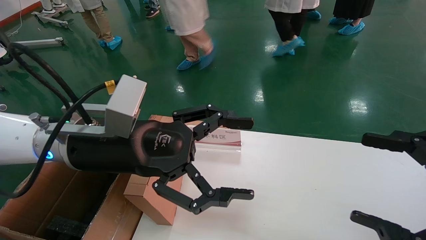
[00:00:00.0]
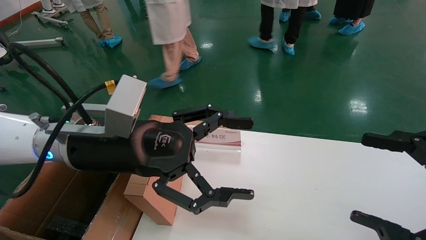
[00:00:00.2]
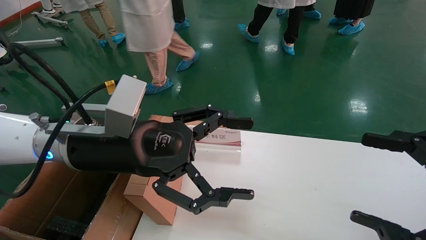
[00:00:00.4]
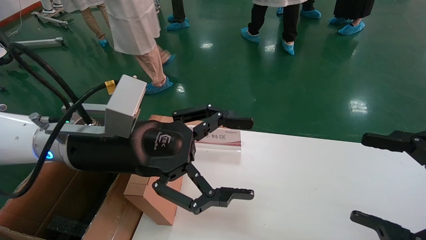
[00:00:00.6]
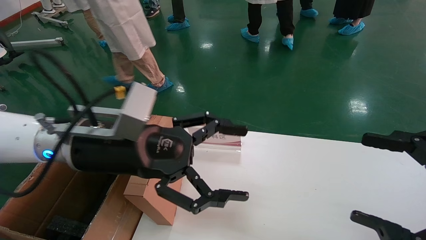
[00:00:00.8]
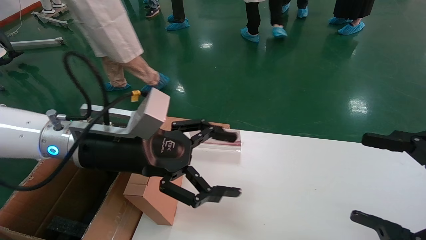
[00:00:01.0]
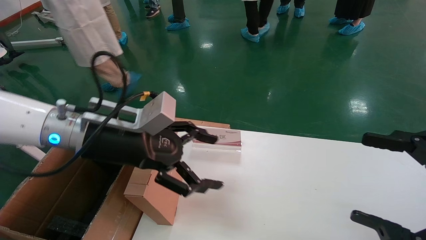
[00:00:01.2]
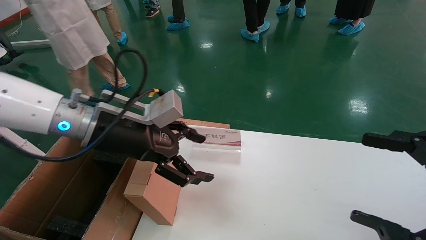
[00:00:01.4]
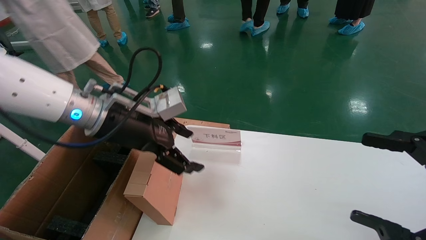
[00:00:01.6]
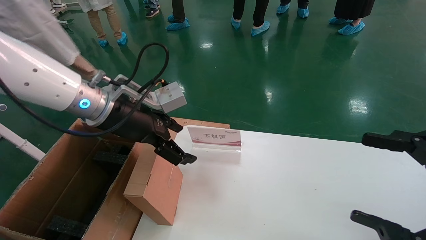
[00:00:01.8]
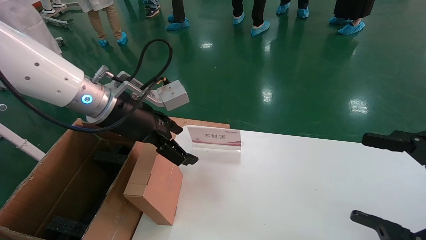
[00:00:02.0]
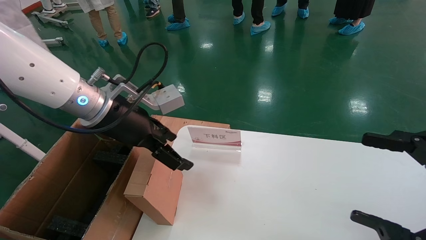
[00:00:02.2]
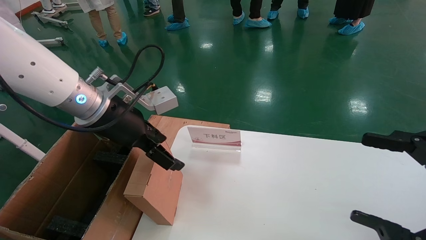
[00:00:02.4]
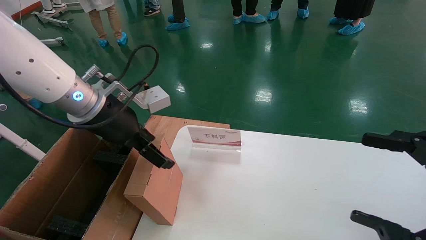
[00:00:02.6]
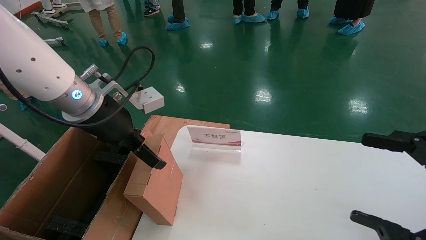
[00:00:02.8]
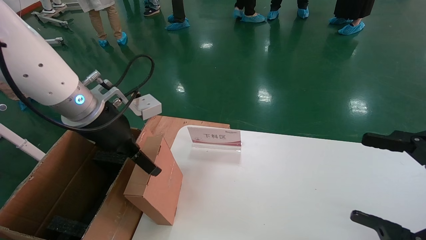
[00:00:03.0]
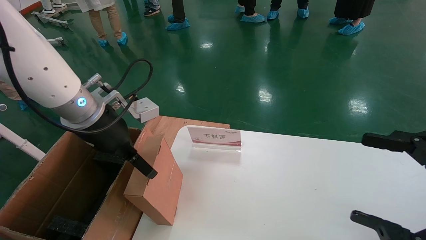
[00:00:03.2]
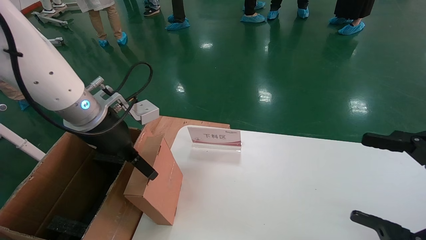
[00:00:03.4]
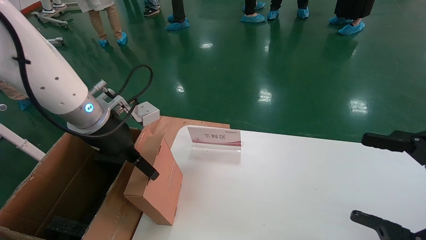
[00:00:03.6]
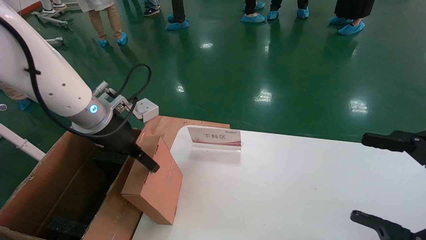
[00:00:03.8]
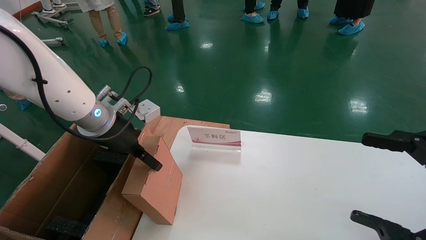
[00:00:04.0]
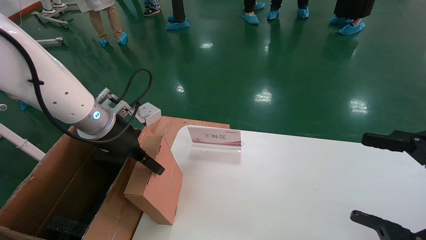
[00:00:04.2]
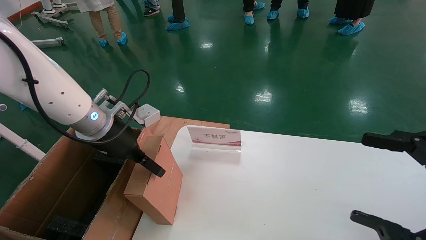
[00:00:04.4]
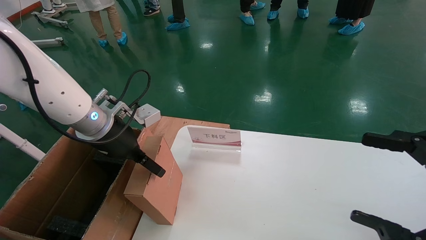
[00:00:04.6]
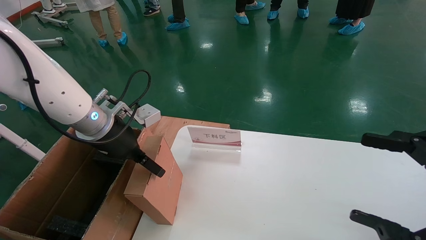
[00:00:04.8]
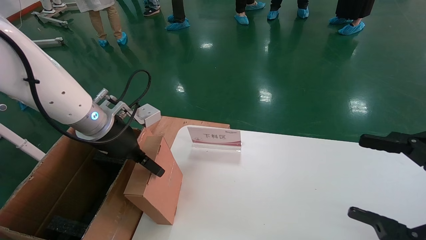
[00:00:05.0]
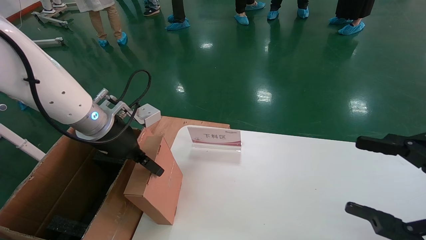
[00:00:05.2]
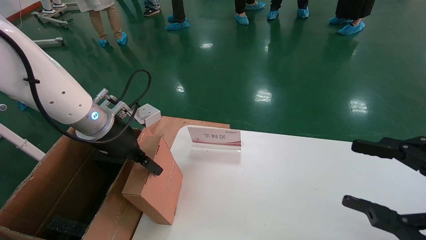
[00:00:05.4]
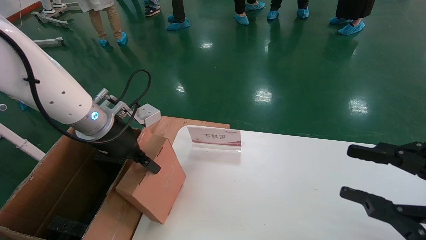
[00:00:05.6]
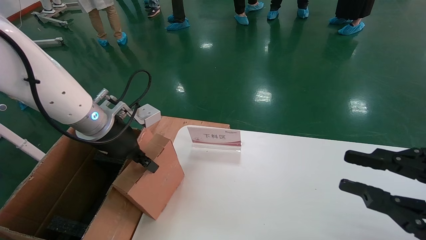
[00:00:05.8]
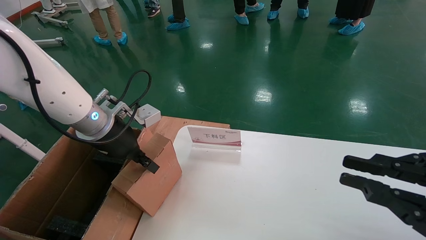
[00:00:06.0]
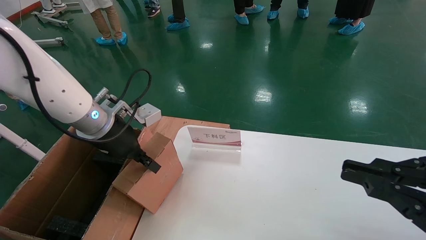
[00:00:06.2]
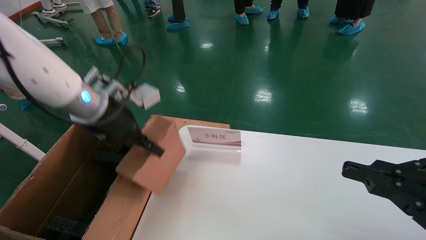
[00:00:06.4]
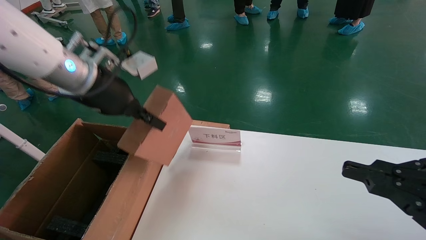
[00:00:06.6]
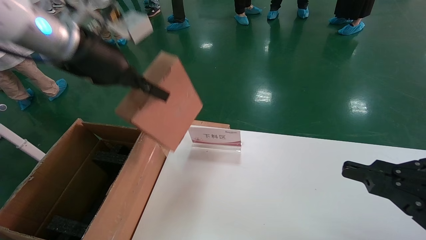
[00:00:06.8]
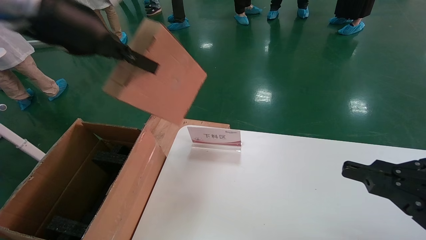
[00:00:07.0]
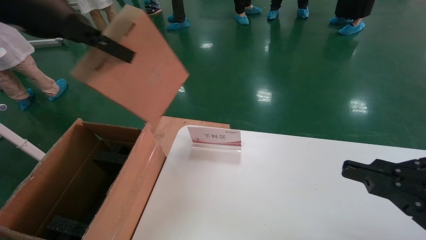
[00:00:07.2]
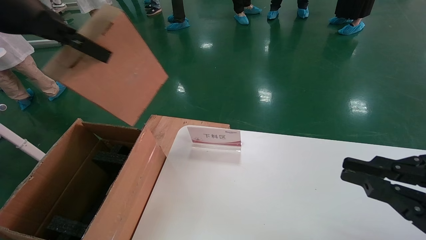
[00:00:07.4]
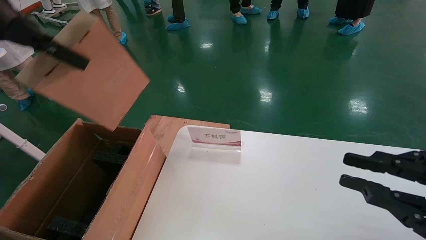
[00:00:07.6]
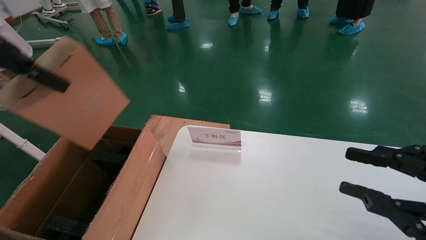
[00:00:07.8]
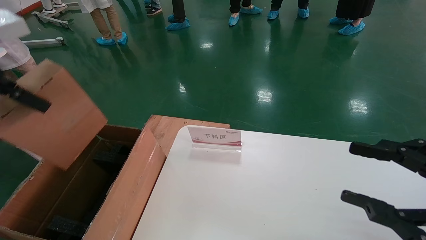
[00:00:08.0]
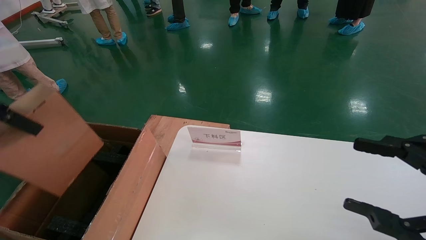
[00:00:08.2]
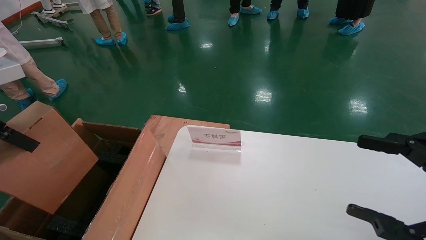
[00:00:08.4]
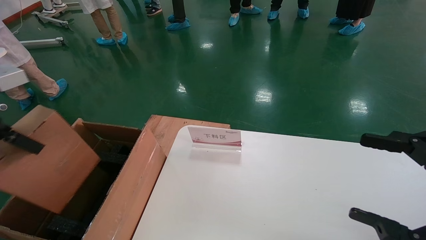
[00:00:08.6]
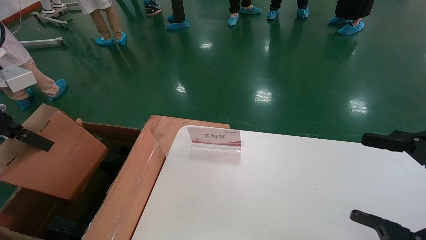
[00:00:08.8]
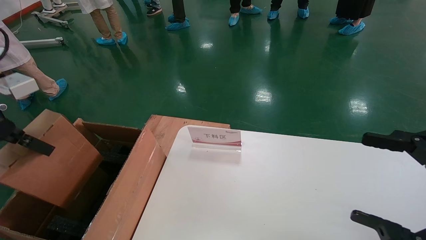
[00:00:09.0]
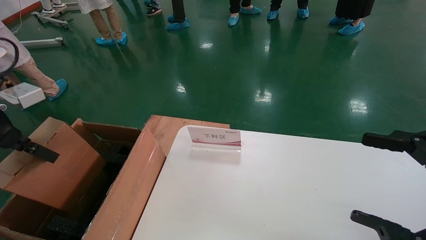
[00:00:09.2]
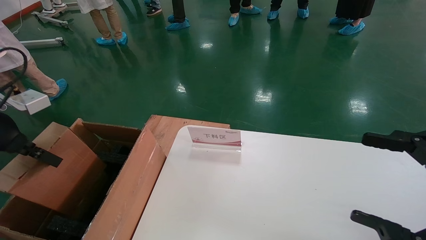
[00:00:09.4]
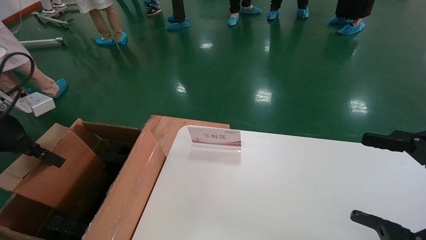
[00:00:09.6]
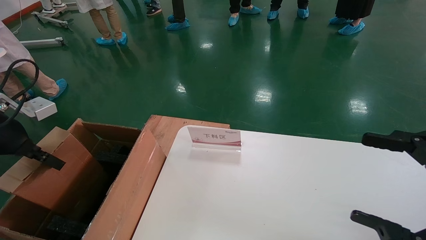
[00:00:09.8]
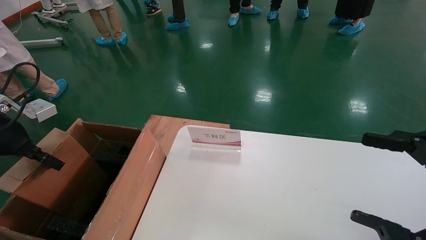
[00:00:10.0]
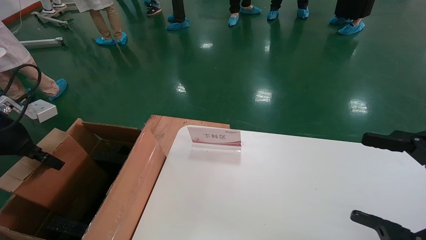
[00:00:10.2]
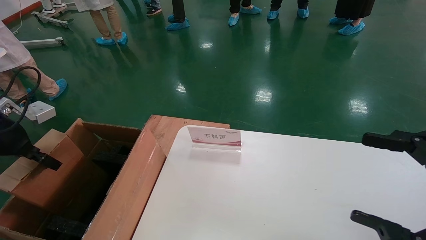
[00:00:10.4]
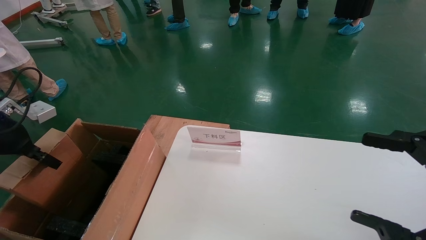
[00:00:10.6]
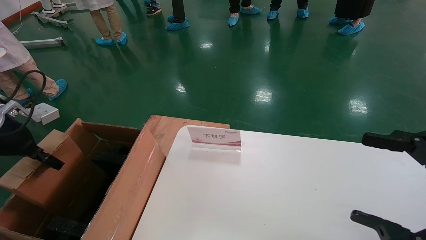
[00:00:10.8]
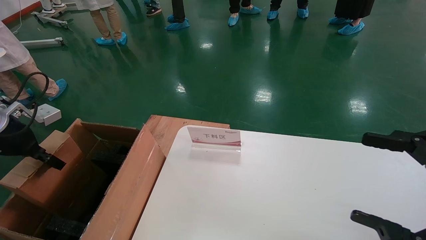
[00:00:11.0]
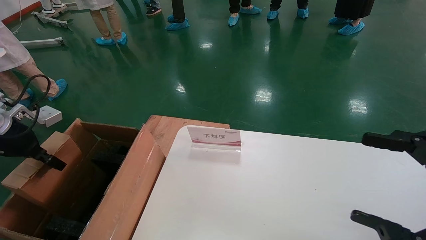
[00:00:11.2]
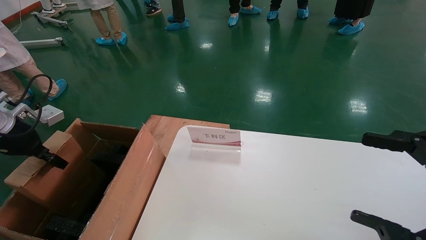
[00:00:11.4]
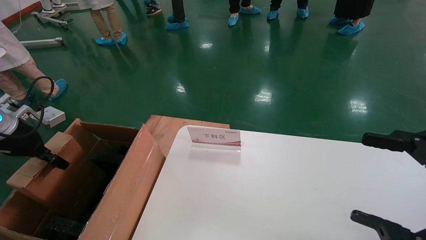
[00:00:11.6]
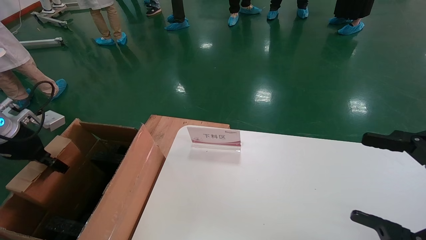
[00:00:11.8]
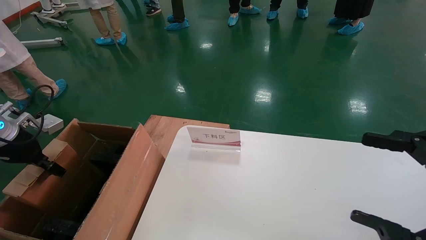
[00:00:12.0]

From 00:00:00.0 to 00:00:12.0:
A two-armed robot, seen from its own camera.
Task of the whole recording: pick up the small cardboard box and load it into the large cardboard box.
Step, from 00:00:01.2 to 00:00:05.4: Pick up the mouse and power cord box.
From 00:00:00.0 to 00:00:01.6: The left gripper moves forward, roughly 5 cm.
From 00:00:03.0 to 00:00:04.4: The grippers make only small movements.
From 00:00:04.4 to 00:00:06.0: The right gripper closes. The left gripper closes up.
From 00:00:06.0 to 00:00:07.6: The left gripper shifts some 25 cm upward and backward.
From 00:00:07.6 to 00:00:09.0: The right gripper opens its fingers, while the left gripper shifts approximately 15 cm downward and to the left.
From 00:00:09.0 to 00:00:10.4: The left gripper goes roughly 10 cm downward and forward.
From 00:00:10.4 to 00:00:12.0: The left gripper moves roughly 5 cm.

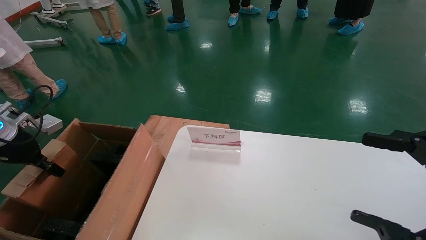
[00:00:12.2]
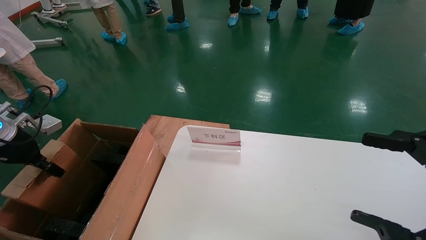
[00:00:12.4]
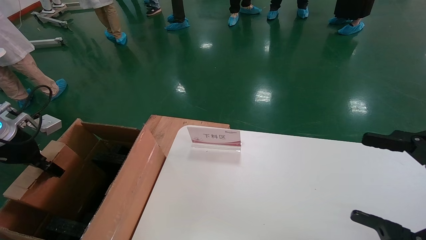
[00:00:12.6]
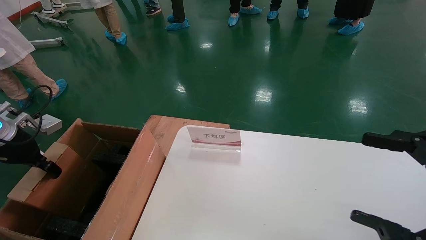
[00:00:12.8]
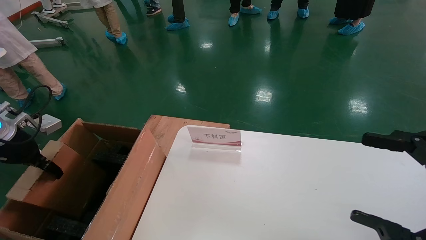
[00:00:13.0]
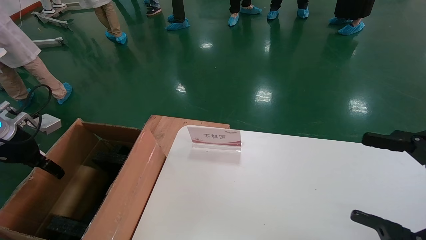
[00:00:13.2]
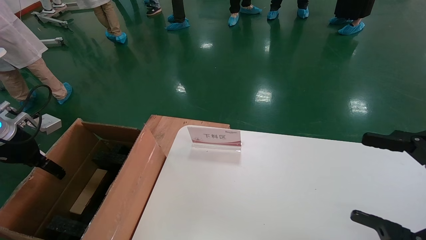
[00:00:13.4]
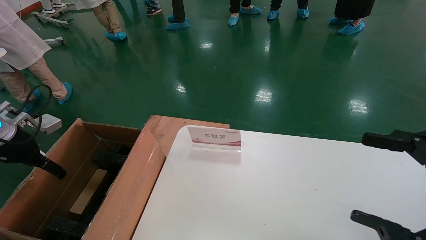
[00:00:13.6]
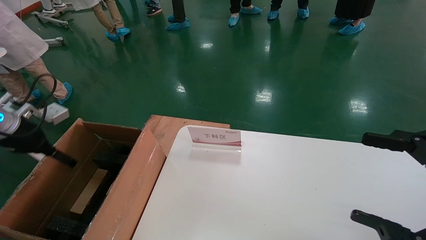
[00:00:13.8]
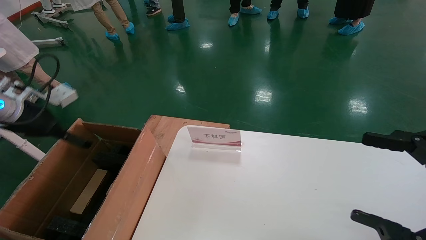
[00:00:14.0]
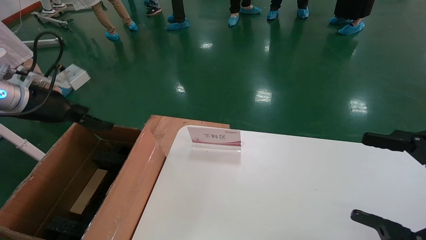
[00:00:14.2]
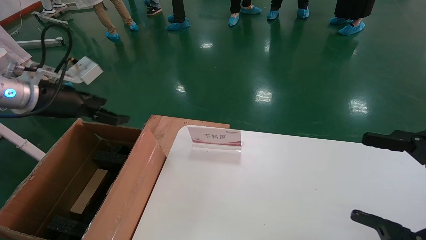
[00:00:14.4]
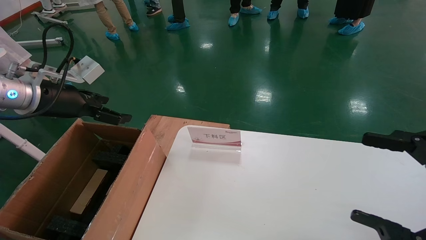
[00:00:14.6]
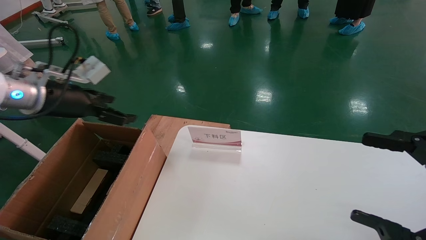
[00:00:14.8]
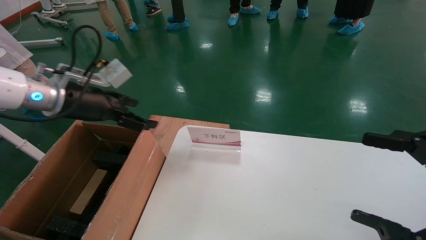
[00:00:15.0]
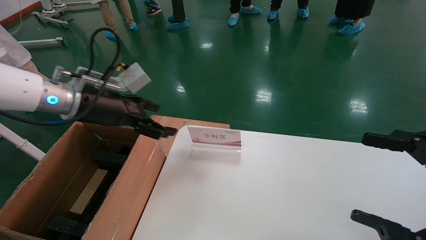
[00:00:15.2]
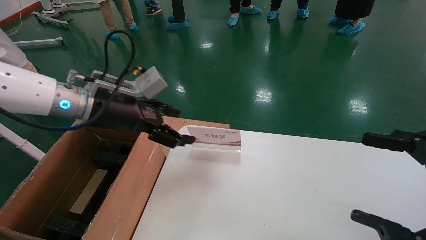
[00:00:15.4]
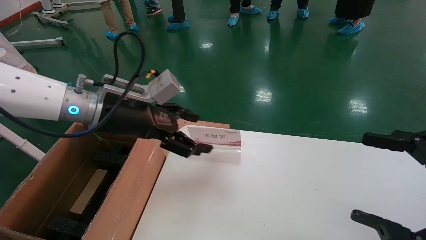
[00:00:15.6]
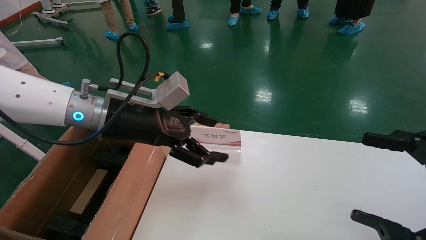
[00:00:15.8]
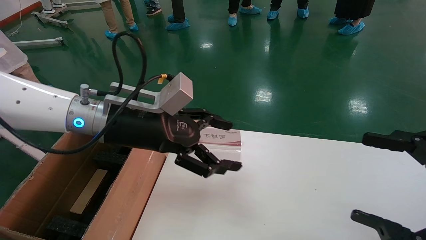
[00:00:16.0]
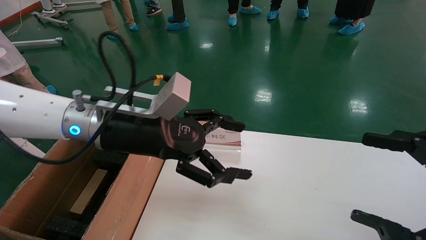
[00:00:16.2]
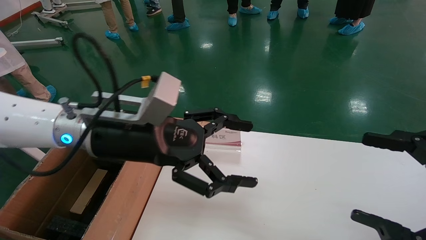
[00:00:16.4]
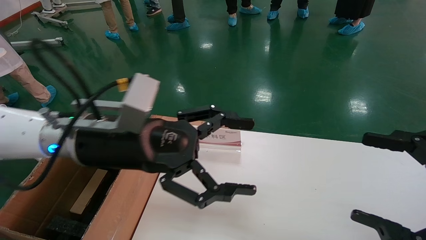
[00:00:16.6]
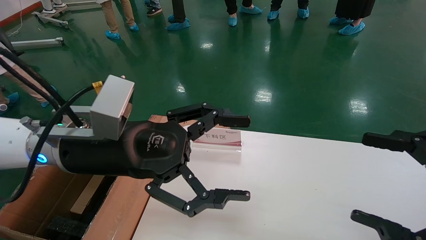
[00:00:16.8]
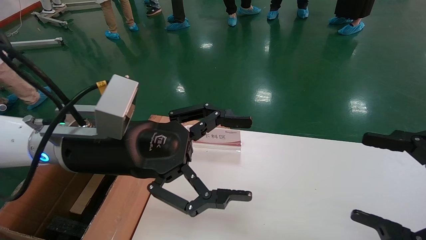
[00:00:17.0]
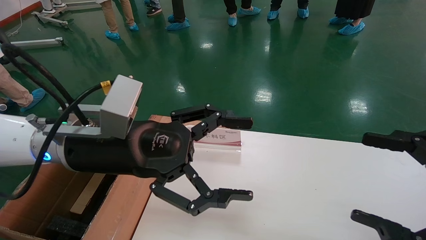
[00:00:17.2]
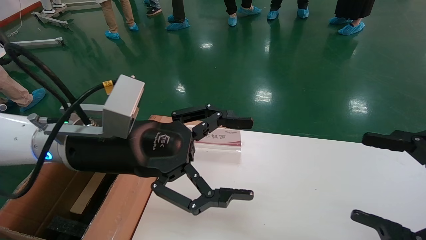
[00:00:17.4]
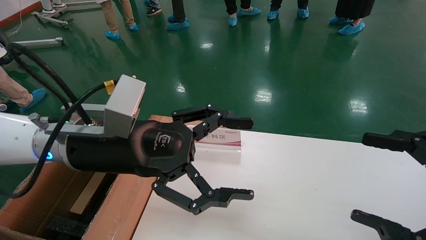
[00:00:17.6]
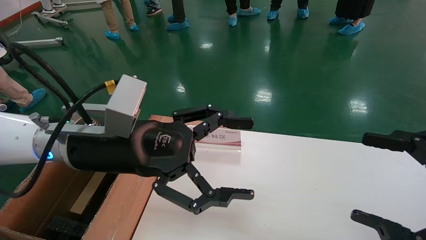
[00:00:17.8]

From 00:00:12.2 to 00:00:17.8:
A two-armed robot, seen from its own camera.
Task of the whole recording: pick up the small cardboard box and load it into the large cardboard box.
From 00:00:12.2 to 00:00:13.6: The left gripper opens up.
From 00:00:13.6 to 00:00:15.0: The left gripper heads to the right and upward, covering some 15 cm.
From 00:00:15.0 to 00:00:16.4: The left gripper shifts about 15 cm to the right.
From 00:00:16.4 to 00:00:17.8: The grippers move only a little.
